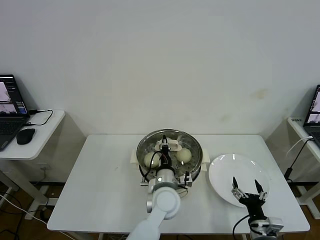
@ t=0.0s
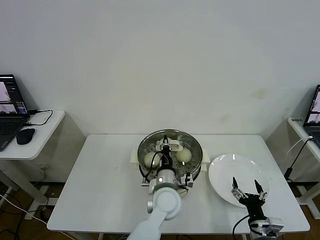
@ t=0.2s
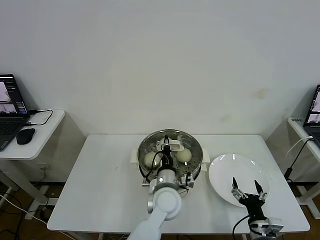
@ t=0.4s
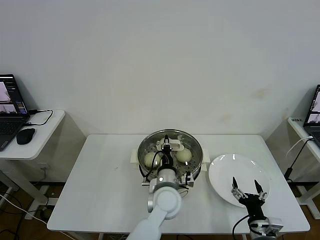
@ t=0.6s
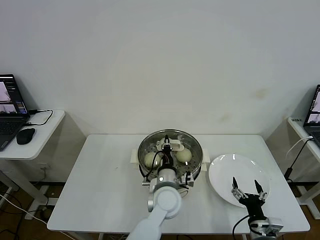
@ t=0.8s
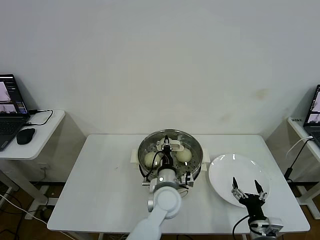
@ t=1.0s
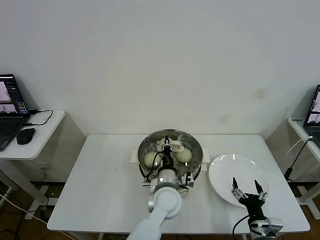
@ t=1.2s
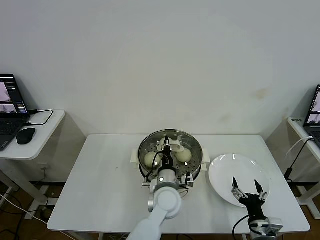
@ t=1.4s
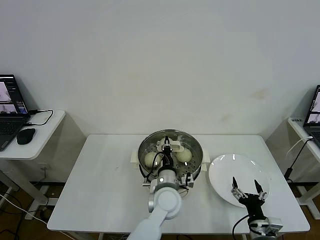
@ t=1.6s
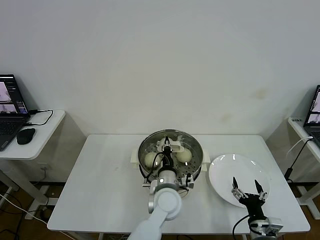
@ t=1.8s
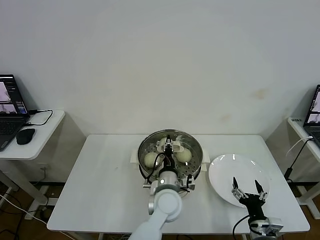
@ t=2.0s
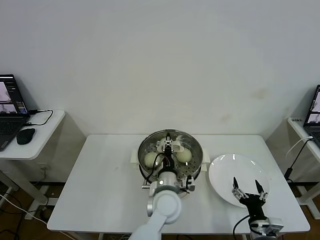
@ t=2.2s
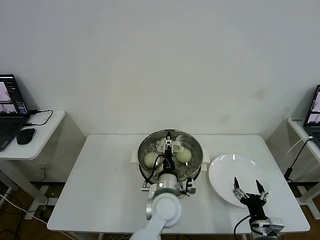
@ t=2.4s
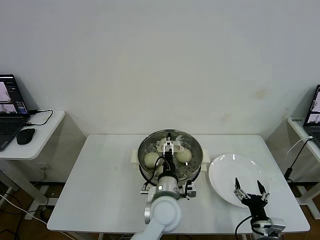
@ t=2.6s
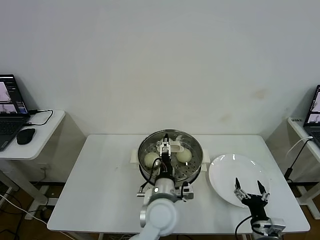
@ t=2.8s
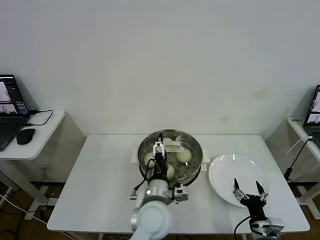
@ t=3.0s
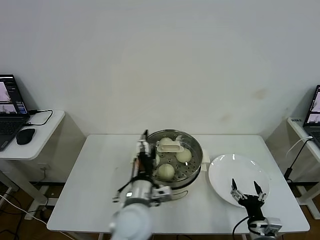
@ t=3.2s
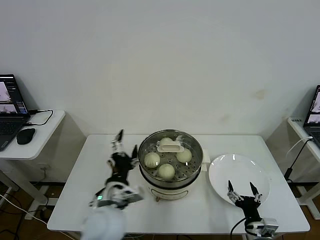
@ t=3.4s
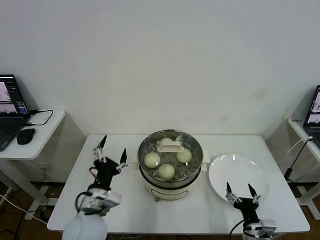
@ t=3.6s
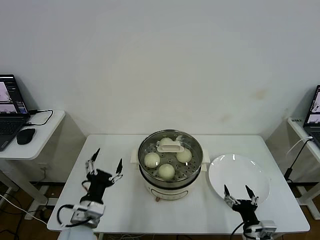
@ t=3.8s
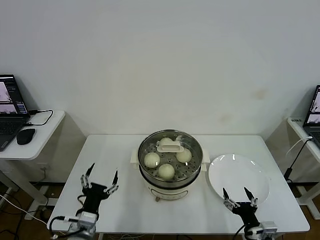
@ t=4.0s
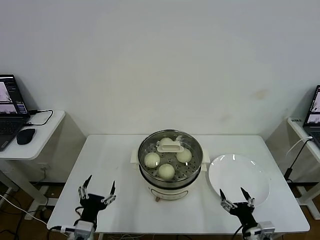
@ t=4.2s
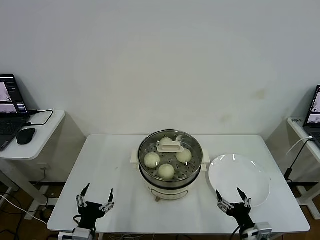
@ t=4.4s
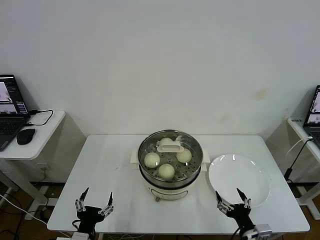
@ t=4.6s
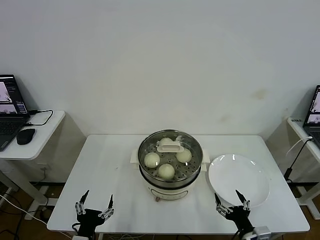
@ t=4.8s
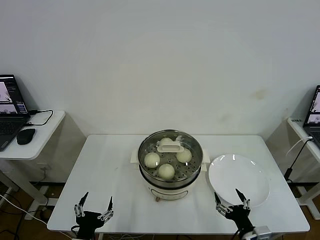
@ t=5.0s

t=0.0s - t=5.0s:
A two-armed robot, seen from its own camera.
Task of the whole recording: take steamed baozi put them in steamer then cover it.
Step, t=0.0s - t=2.2s: Place the pot lid on the steamer with left gripper.
t=0.0s - t=1.6s: Both grippers stay put.
t=1.6s - t=3.4s: The left gripper goes approximately 20 cm to the left, backward and upward, and opens up.
t=3.4s - t=5.0s: The left gripper travels backward, to the left and downward by about 20 cm.
